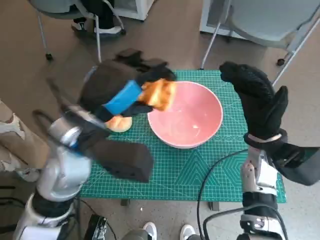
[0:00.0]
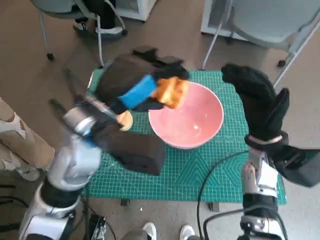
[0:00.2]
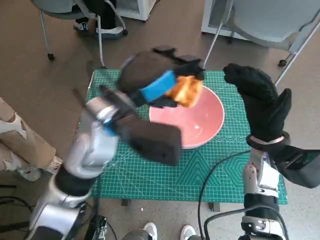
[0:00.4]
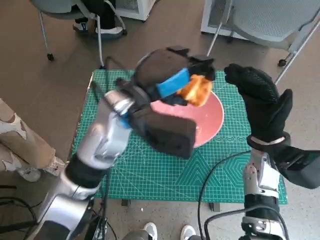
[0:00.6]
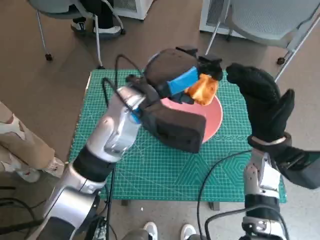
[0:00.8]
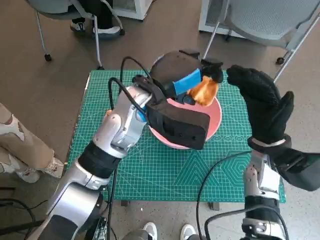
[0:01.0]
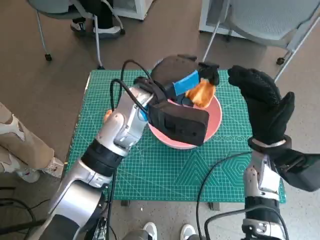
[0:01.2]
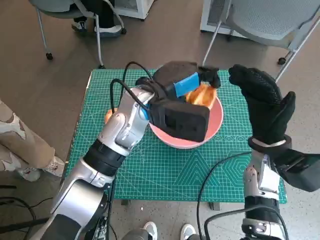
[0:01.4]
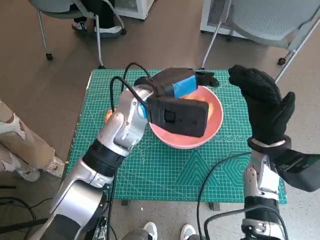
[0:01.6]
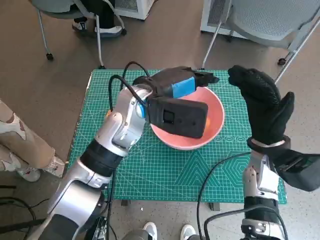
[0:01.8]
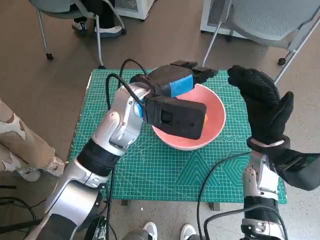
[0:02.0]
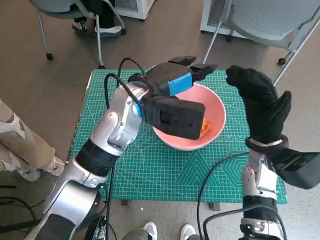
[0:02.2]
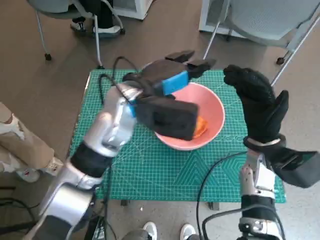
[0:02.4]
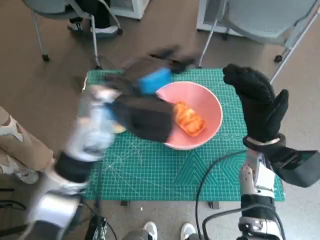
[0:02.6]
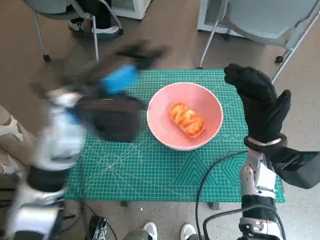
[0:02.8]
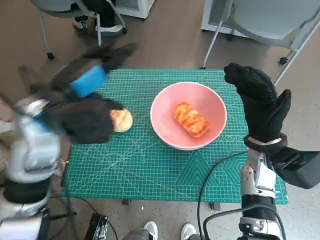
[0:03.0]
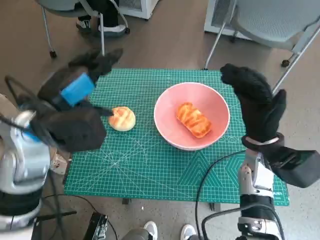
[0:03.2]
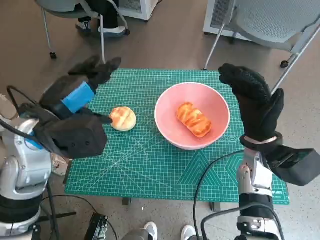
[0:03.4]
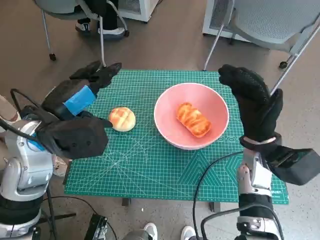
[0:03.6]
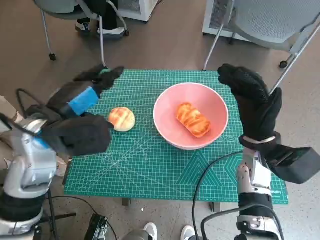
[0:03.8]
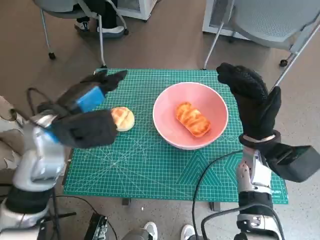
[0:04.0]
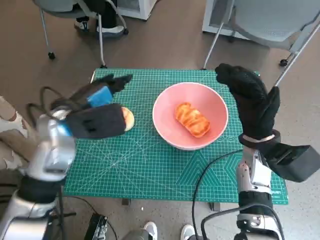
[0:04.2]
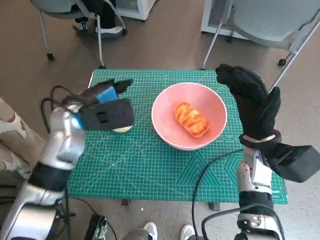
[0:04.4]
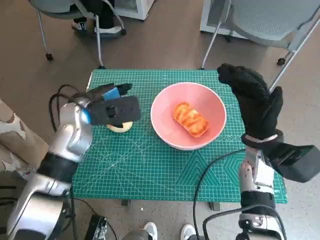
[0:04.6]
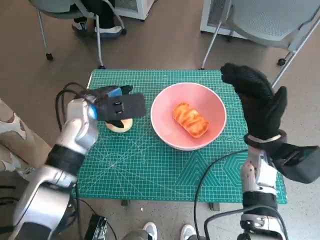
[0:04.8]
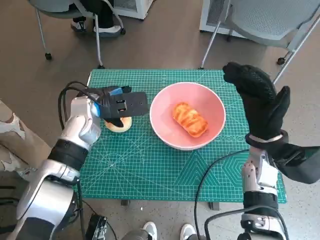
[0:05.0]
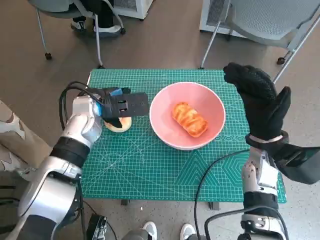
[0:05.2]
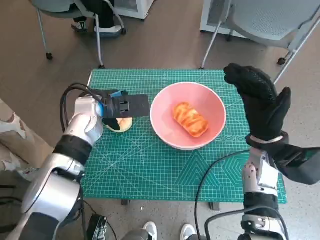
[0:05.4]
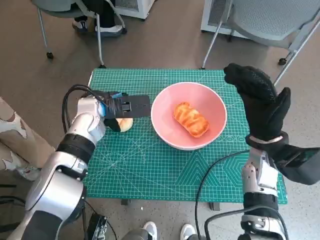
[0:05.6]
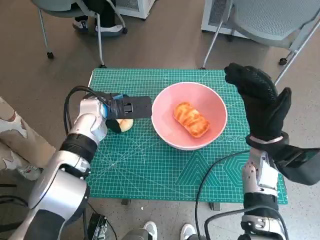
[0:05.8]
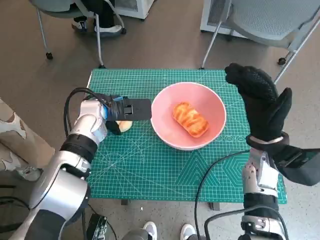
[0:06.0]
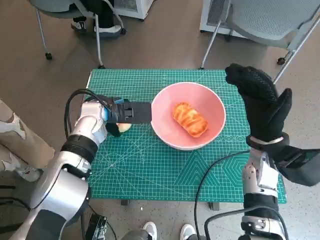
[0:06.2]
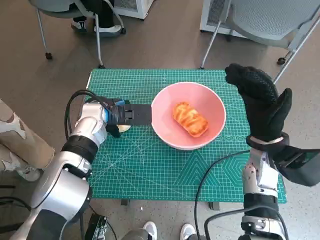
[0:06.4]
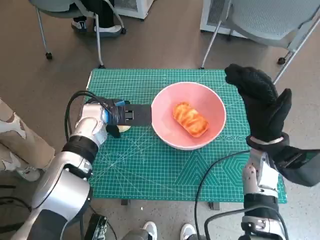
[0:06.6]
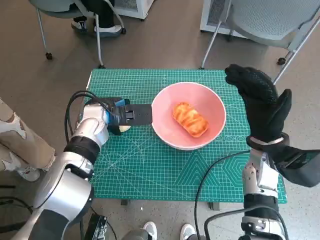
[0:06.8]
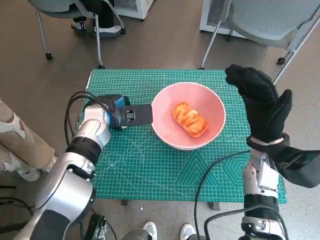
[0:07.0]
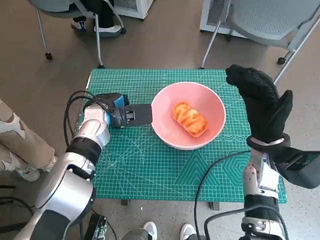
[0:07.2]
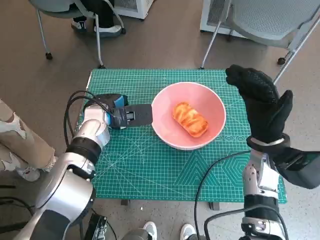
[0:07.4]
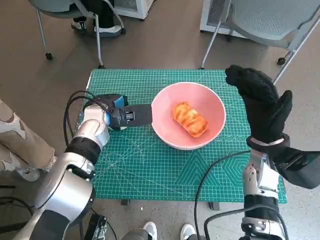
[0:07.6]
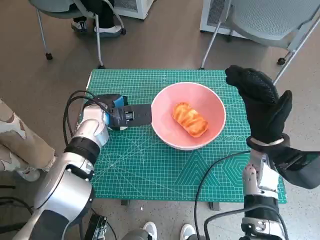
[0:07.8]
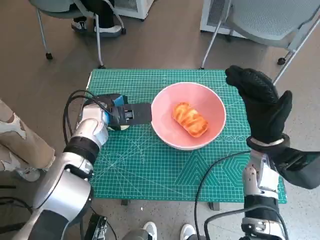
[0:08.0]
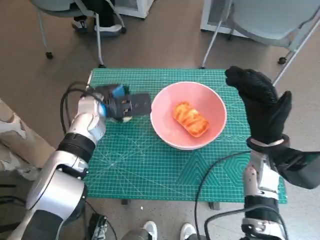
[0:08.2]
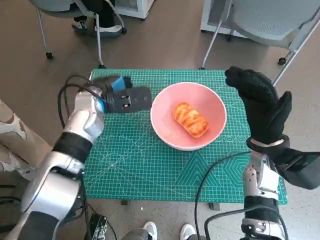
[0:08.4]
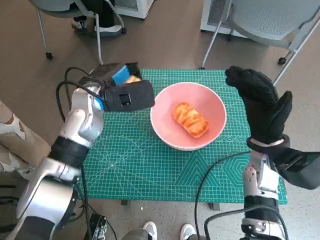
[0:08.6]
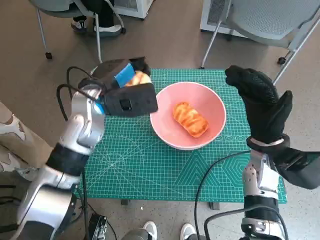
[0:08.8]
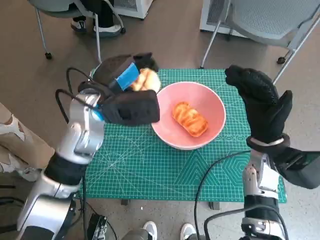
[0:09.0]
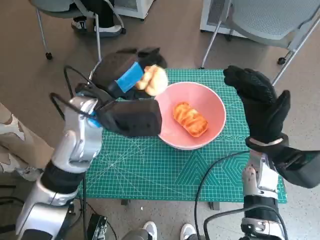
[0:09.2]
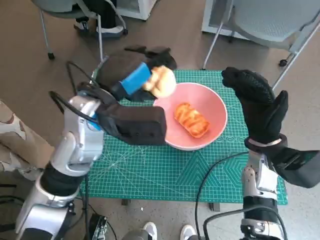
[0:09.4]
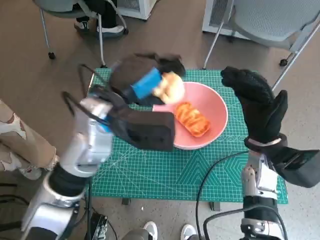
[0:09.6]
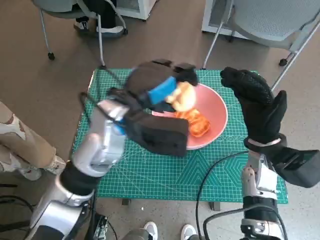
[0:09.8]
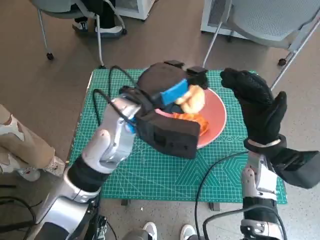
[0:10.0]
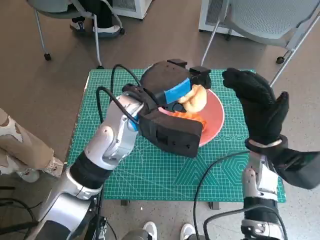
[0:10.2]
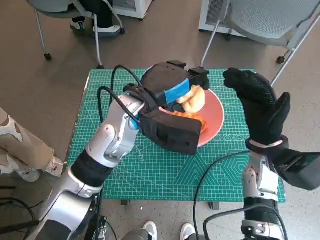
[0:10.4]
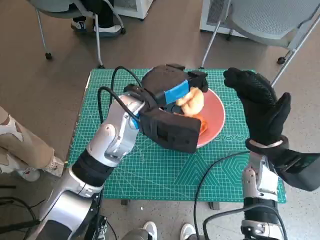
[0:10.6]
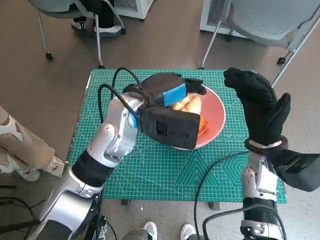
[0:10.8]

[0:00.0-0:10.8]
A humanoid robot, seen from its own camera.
Step, 0:00.0 to 0:02.2: Place the long bread in pink bowl with left hand.
Step, 0:02.4 to 0:07.2: Grasp the round bread with left hand.
0:00.0 to 0:01.6: The left hand shifts some 10 cm forward and to the right.
0:01.6 to 0:03.0: The left hand is displaced to the left and backward by roughly 15 cm.
0:03.0 to 0:04.6: The left hand moves downward and forward, approximately 10 cm.
0:06.2 to 0:07.8: The hands make only small movements.
0:07.8 to 0:09.2: The left hand travels upward and backward by approximately 10 cm.
0:09.2 to 0:10.8: The left hand shifts approximately 5 cm to the right.

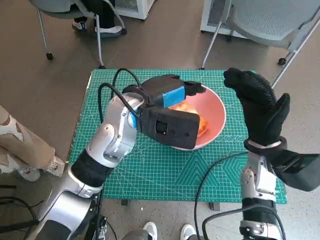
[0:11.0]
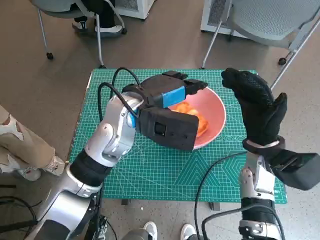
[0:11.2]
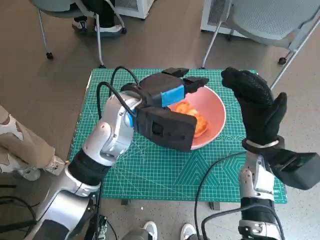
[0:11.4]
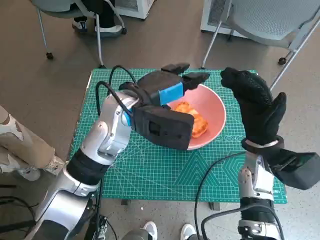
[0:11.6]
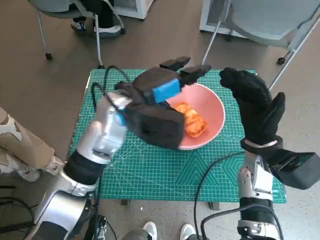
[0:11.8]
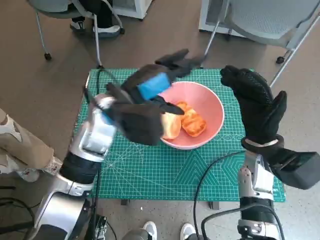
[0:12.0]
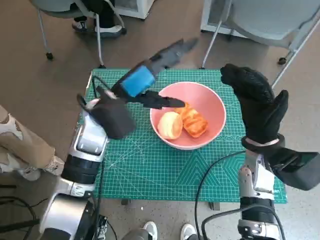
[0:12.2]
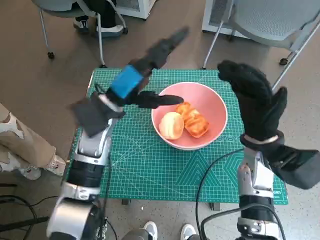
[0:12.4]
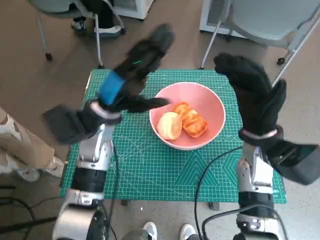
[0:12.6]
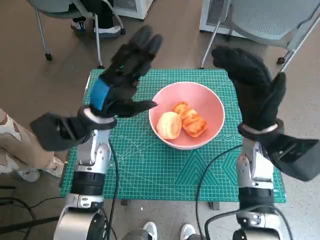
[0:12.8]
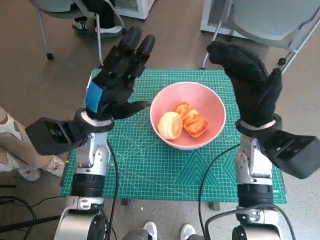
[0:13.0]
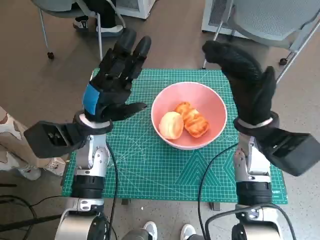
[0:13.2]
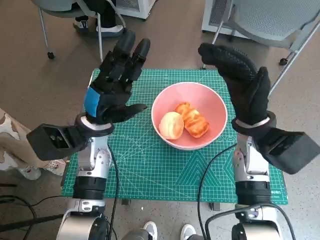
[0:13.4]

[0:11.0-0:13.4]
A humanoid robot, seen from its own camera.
0:11.0 to 0:12.2: The left hand is displaced to the left by approximately 5 cm.
0:12.2 to 0:13.4: The right hand shifts by some 5 cm. The left hand moves downward, about 5 cm.

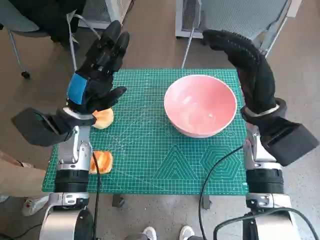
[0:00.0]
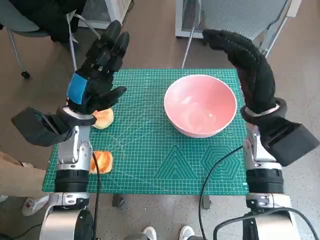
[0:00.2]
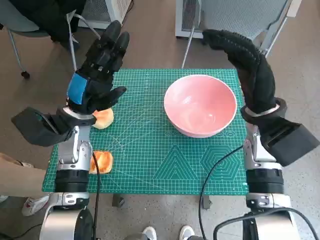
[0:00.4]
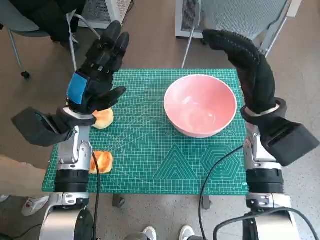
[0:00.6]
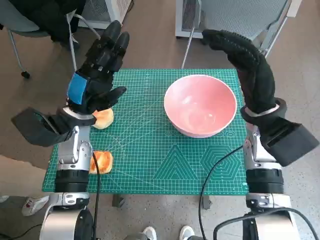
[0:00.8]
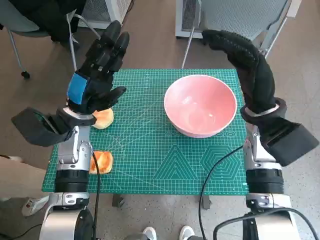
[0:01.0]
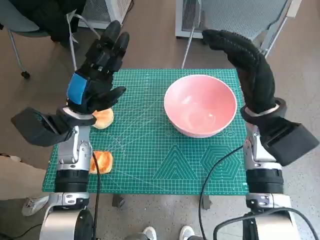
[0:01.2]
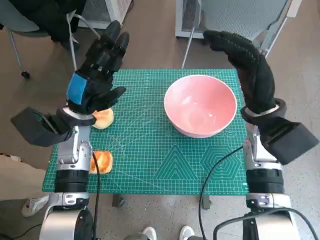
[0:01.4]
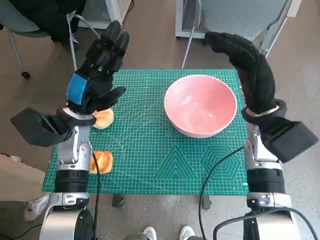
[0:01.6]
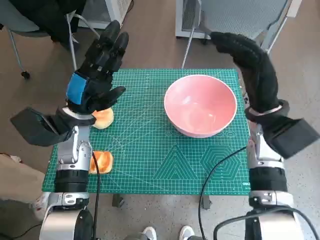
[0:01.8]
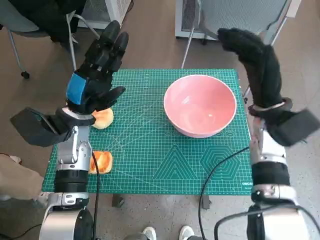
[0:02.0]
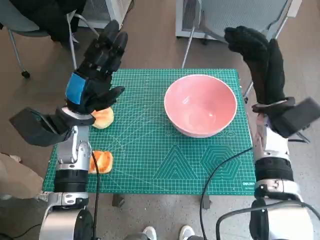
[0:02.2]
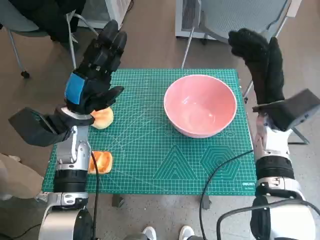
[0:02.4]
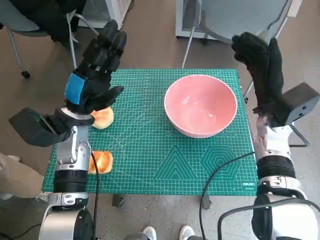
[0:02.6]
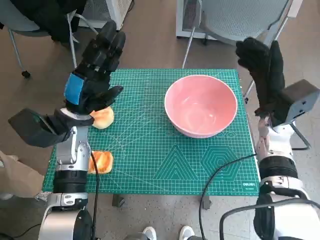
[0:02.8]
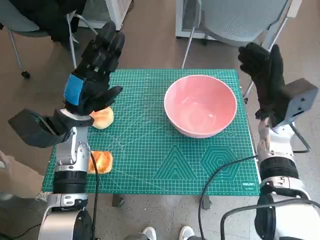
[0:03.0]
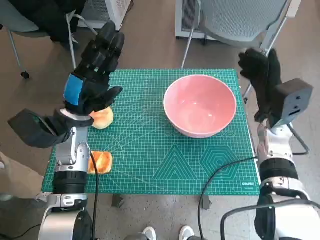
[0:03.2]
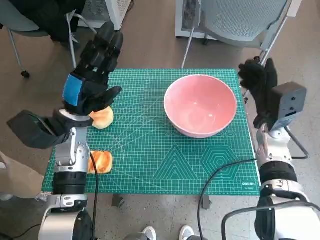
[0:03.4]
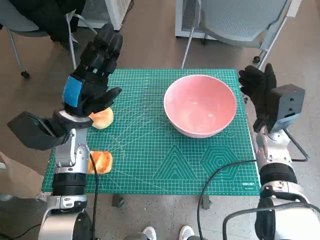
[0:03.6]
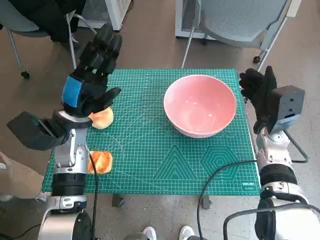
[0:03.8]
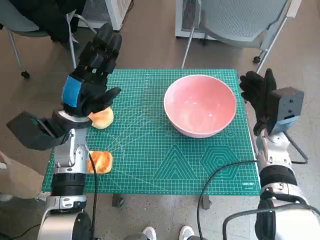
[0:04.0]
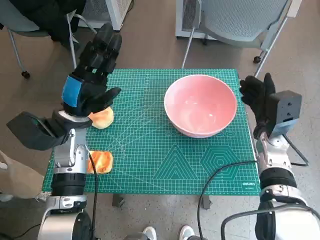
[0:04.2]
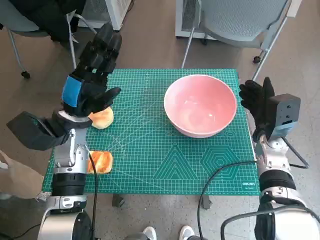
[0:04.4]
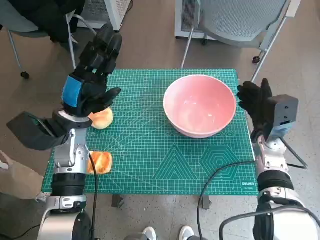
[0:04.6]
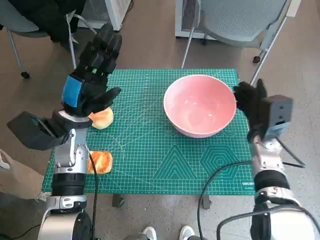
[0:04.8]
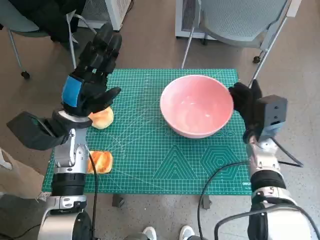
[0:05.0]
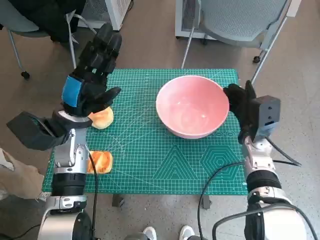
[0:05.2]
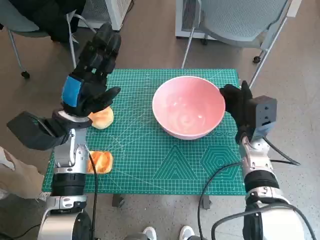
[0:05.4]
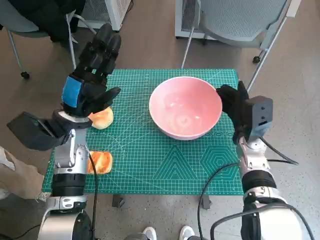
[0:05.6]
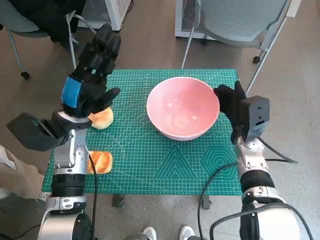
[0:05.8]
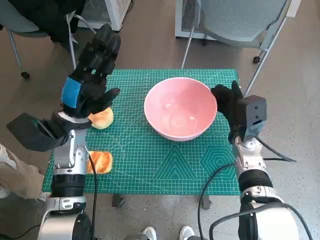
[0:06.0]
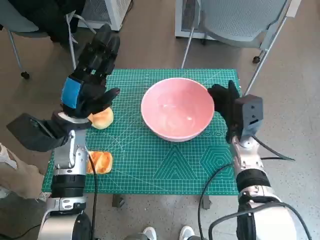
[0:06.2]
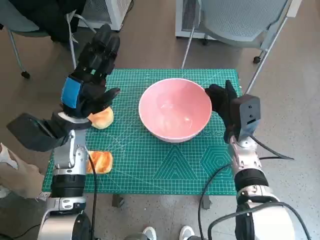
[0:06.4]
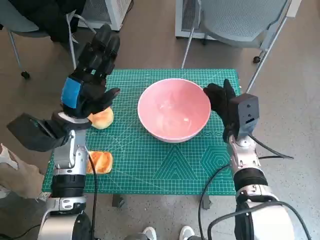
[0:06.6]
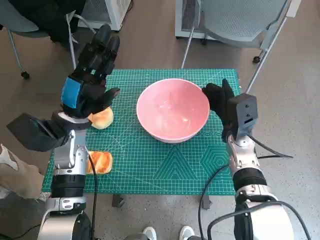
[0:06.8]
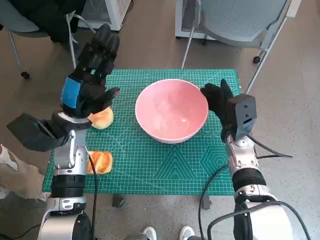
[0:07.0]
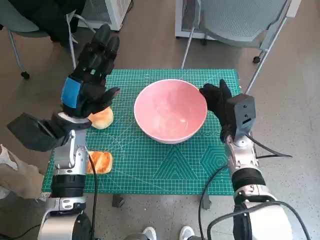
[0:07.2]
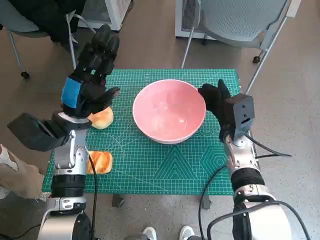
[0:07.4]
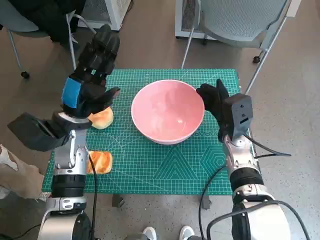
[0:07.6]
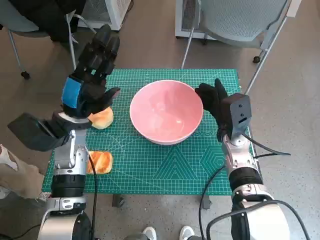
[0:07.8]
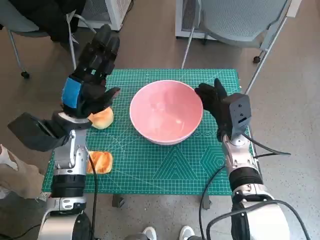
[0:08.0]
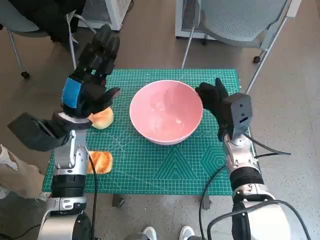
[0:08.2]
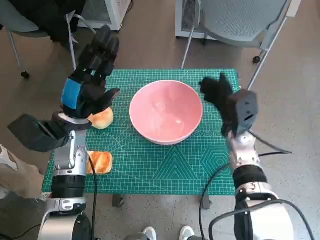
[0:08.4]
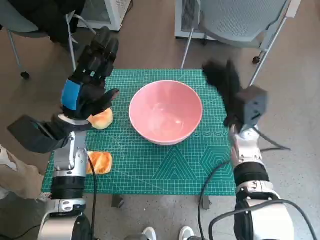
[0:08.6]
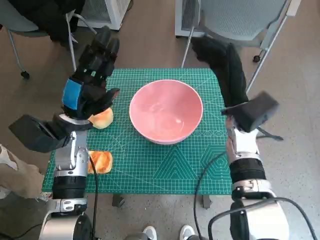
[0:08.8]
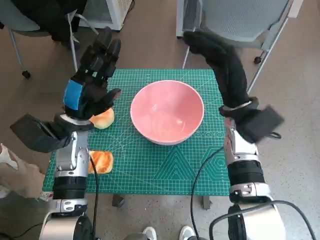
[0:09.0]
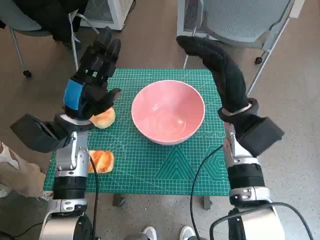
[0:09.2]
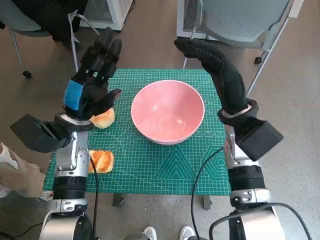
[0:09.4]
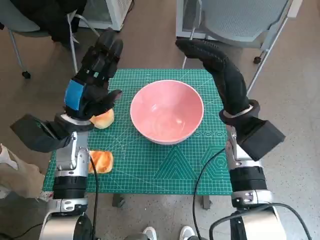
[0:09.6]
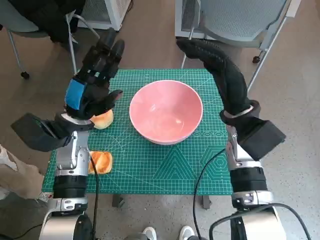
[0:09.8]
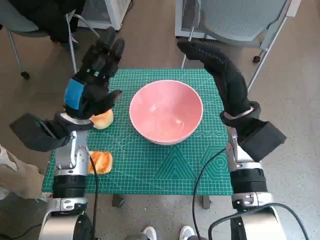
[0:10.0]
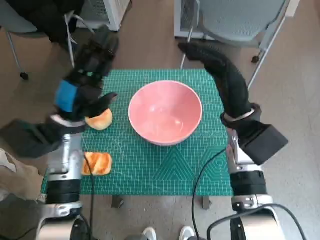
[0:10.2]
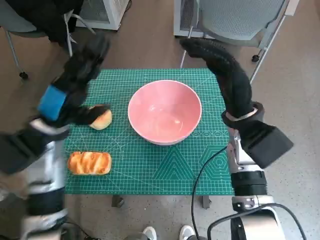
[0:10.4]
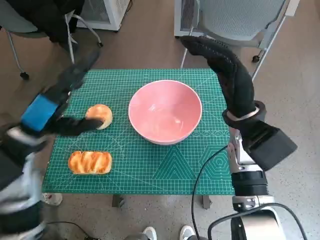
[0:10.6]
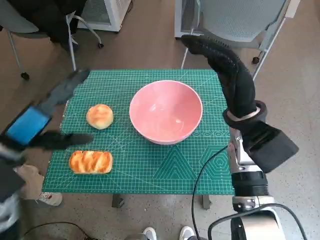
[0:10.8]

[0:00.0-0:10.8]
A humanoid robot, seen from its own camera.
Step, 0:00.0 to 0:08.2: Move the pink bowl to the center of table with right hand.
0:01.6 to 0:03.0: The right hand moves about 5 cm.
0:03.0 to 0:04.6: The right hand is displaced downward by some 5 cm.
0:04.6 to 0:06.2: The right hand travels to the left by roughly 5 cm.
0:06.2 to 0:07.8: There are only small adjustments of the hands.
0:07.8 to 0:09.2: The right hand moves upward, roughly 10 cm.
0:09.2 to 0:10.8: The left hand moves backward, upward and to the left, roughly 10 cm.
